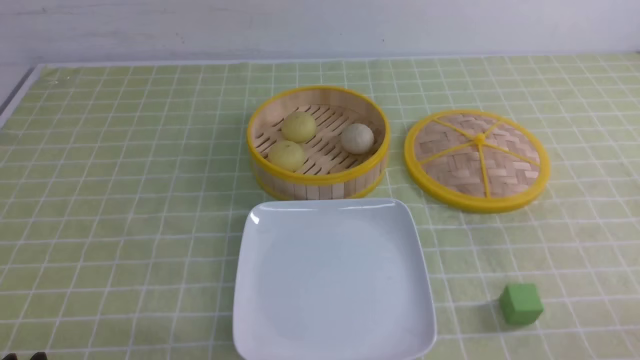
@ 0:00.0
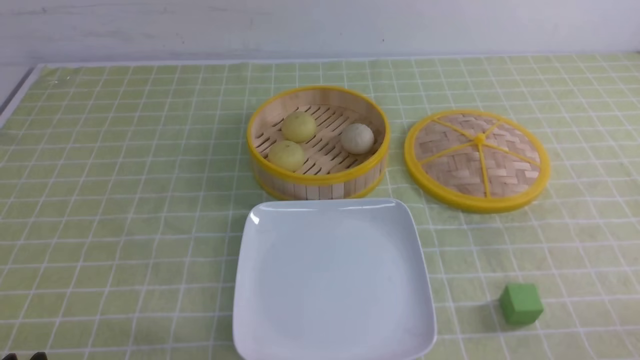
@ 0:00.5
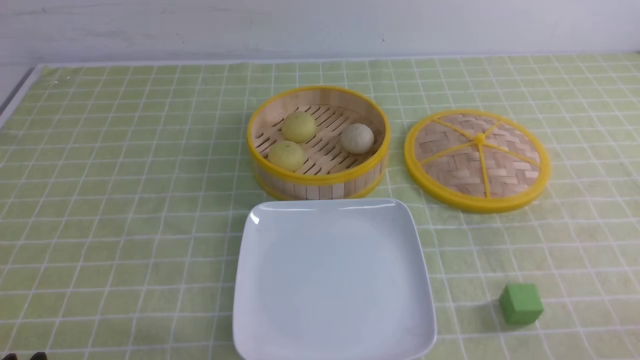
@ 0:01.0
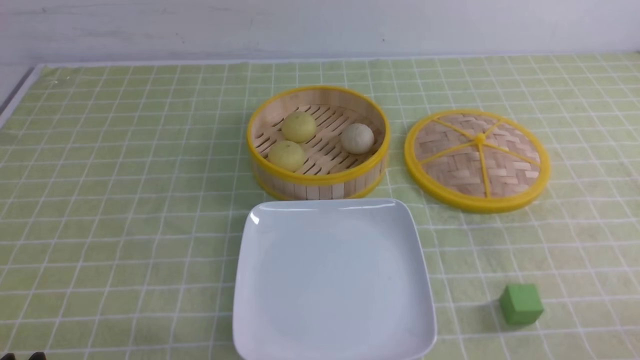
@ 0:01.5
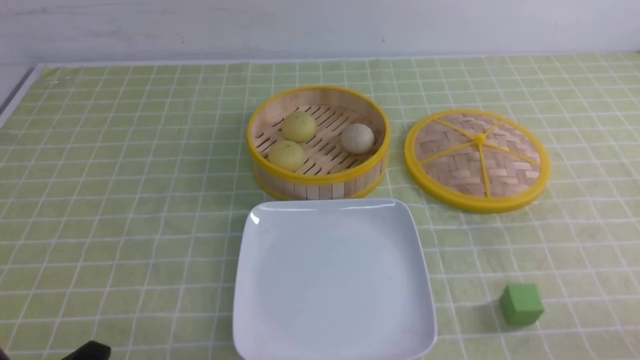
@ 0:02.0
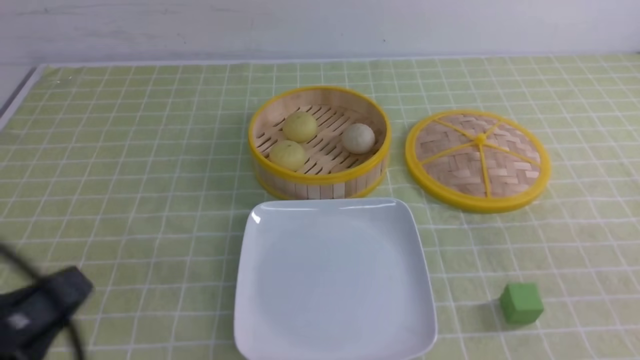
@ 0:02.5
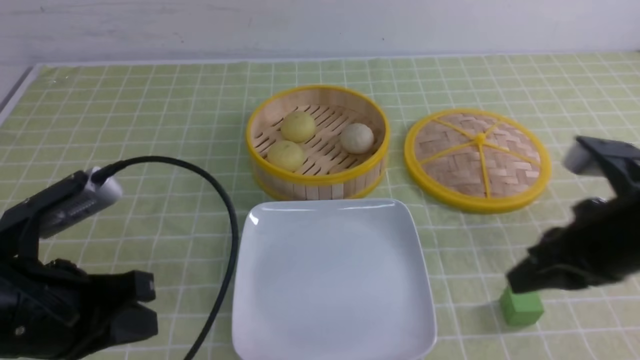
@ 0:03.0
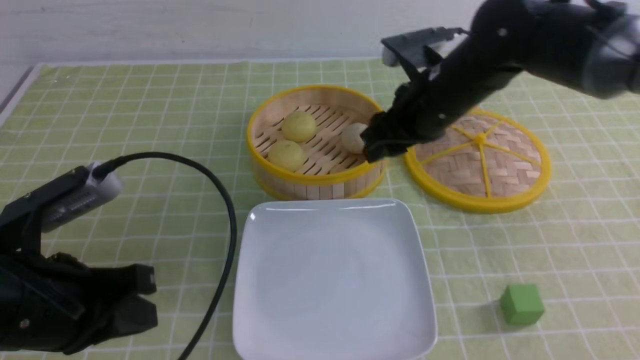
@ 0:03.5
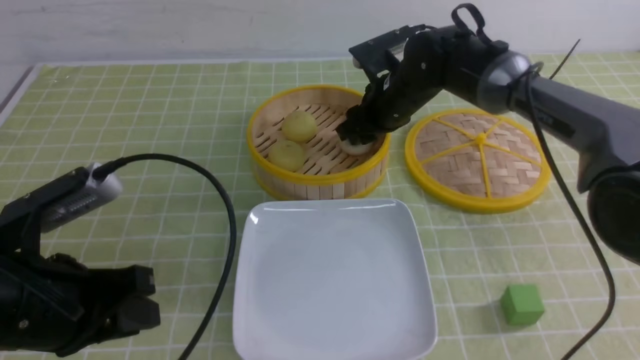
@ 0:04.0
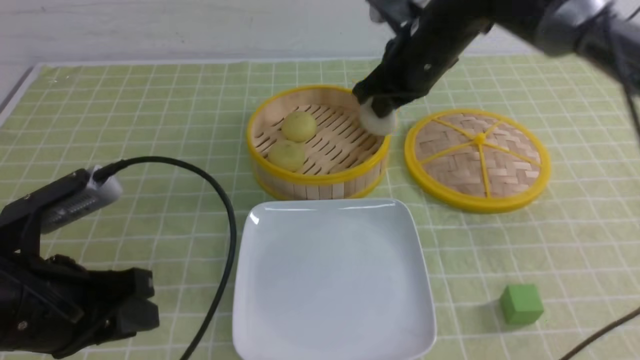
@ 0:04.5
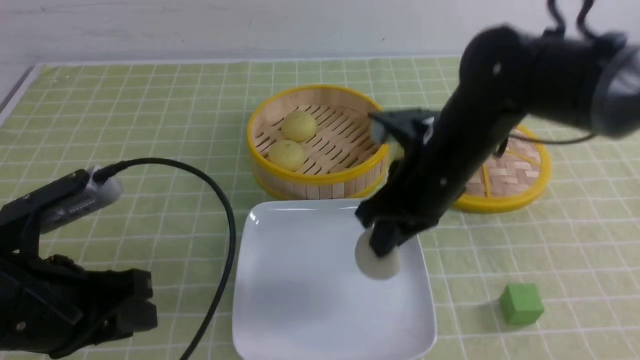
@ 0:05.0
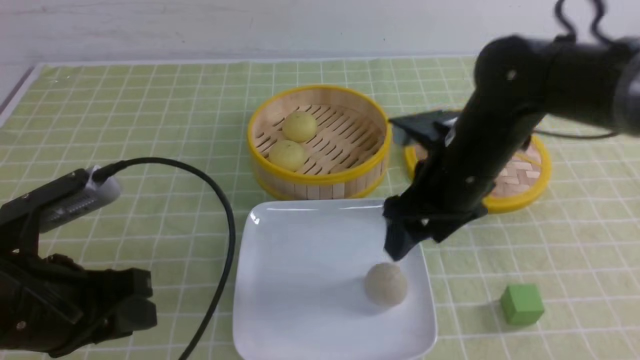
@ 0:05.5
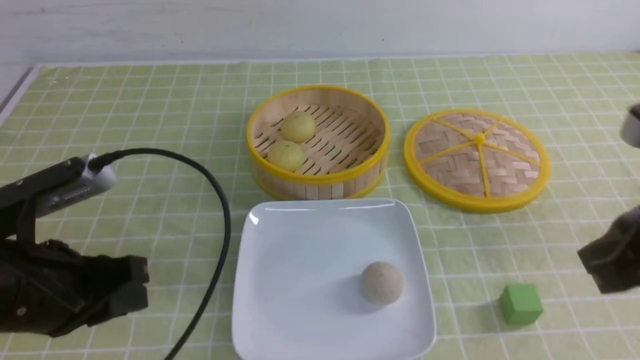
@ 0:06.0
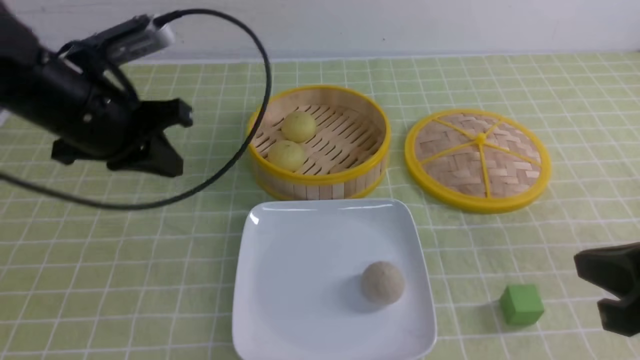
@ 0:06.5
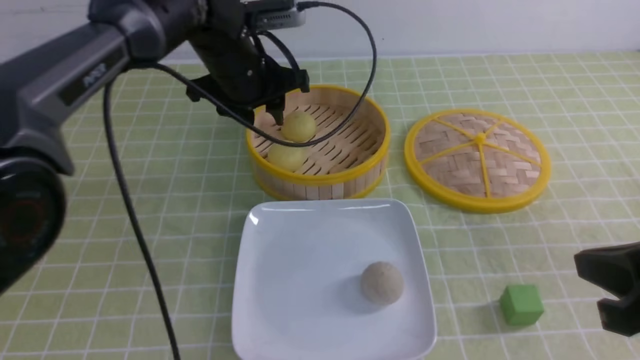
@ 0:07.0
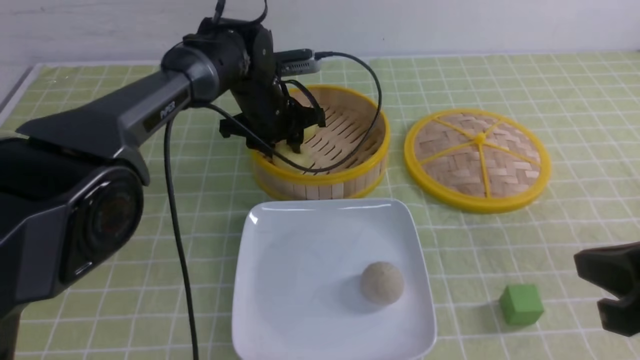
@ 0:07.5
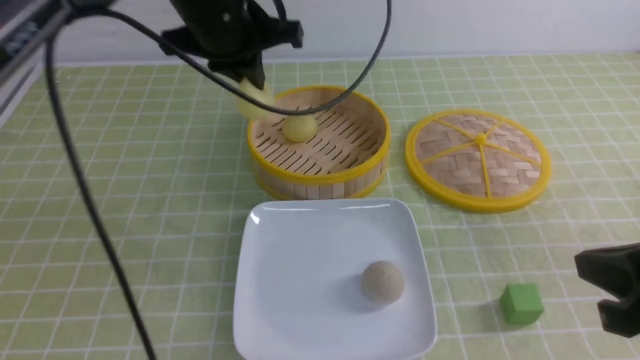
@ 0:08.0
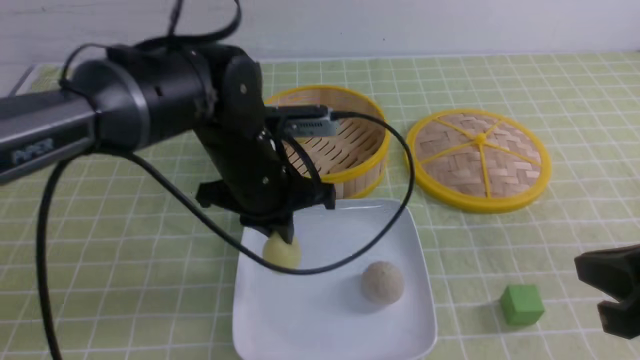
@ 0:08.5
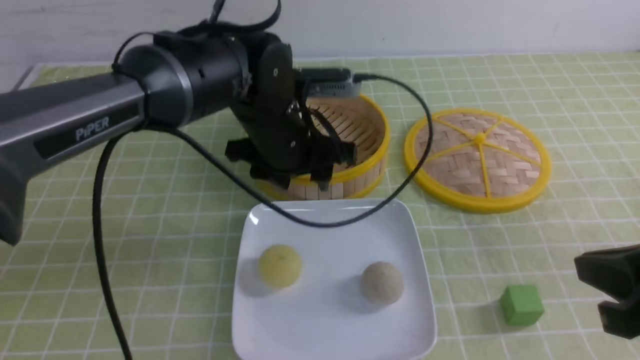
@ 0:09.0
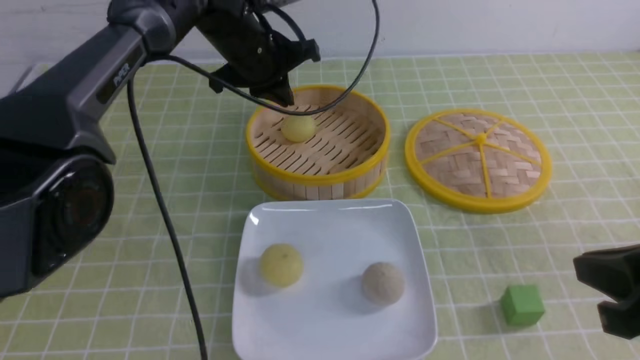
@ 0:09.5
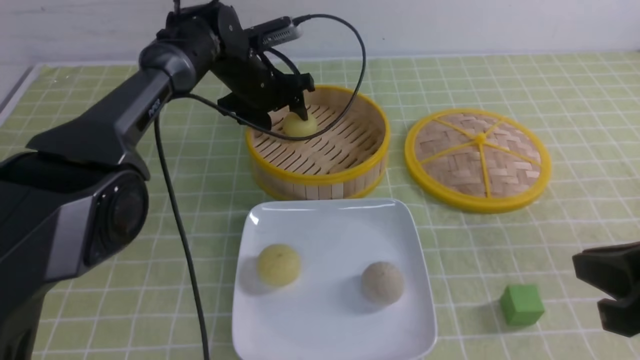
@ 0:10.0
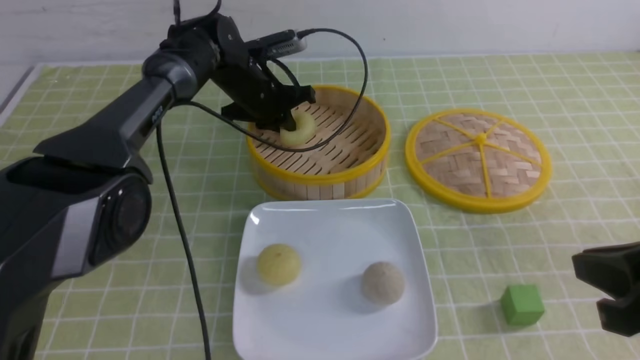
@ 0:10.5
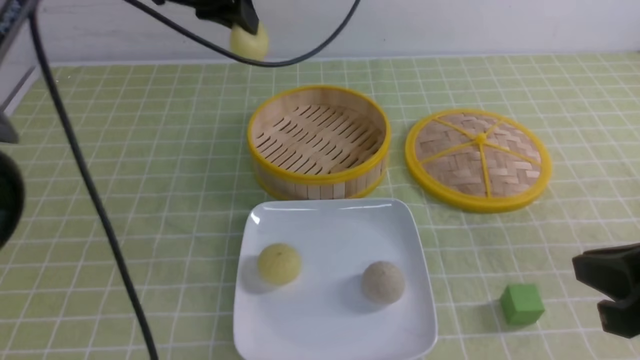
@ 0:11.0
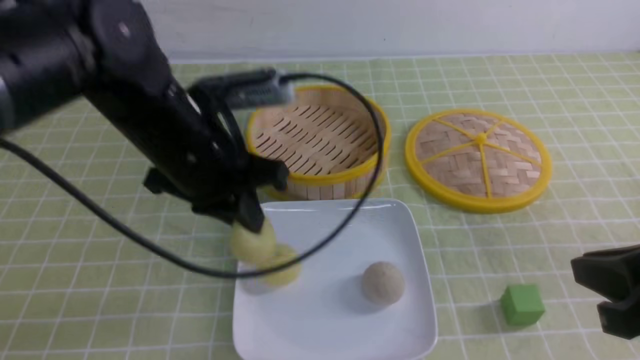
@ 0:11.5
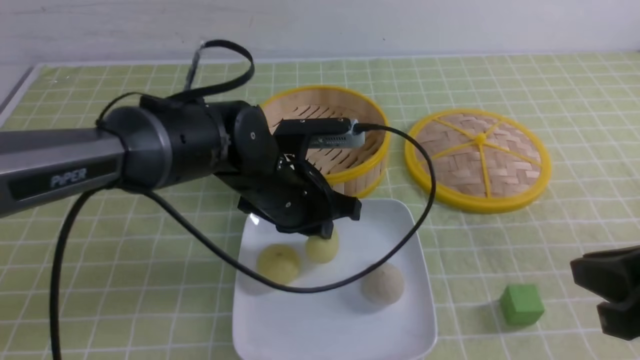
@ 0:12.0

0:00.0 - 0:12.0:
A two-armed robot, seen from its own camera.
Step, 0:00.0 - 0:04.0: use the right arm to grab the steamed stuffed bun that is closest to it.
Step, 0:04.5 - 0:05.0: use the right arm to put the steamed stuffed bun into the plate.
Step, 0:05.5 - 0:07.5: use the left arm to grab the steamed stuffed bun that is closest to it.
Step, 0:08.0 - 0:08.5: use the left arm to put the steamed stuffed bun into the plate.
Step, 0:09.0 - 0:10.0: use the left arm to grab the steamed stuffed bun that is closest to it.
0:02.0 - 0:04.0: The left gripper is displaced forward and upward by approximately 15 cm, and closes, then reopens; the right gripper moves forward and to the left, some 50 cm, and closes and opens again.
0:04.0 - 0:06.0: The right gripper goes about 35 cm backward and to the right, and closes.
0:06.0 - 0:08.0: The left gripper moves forward and to the right, roughly 25 cm, and opens, then closes once more. Meanwhile the right gripper moves about 5 cm.
0:08.0 - 0:10.0: The left gripper moves downward and forward, approximately 20 cm, and opens up.
0:10.0 - 0:12.0: The left gripper heads backward, covering some 20 cm, and closes its fingers.

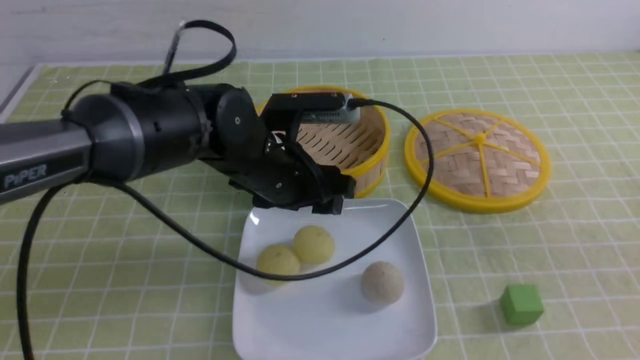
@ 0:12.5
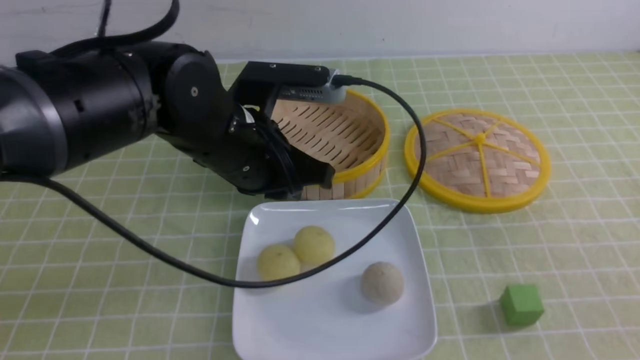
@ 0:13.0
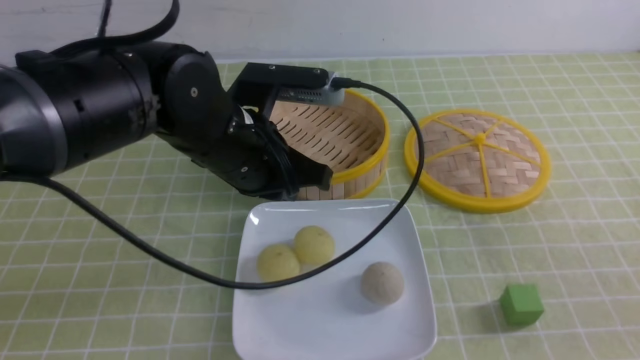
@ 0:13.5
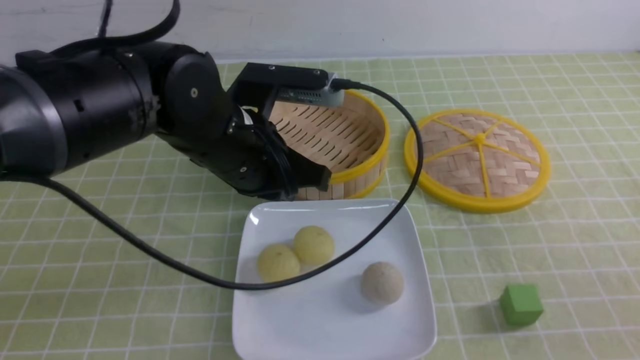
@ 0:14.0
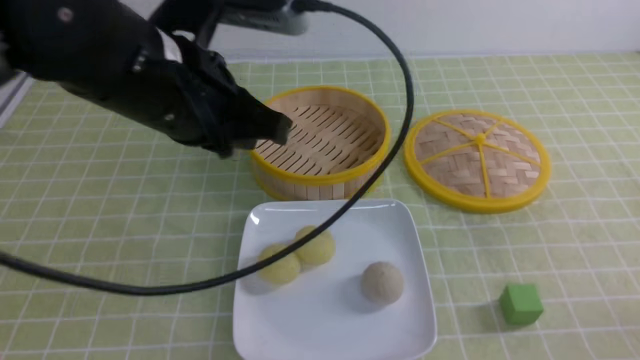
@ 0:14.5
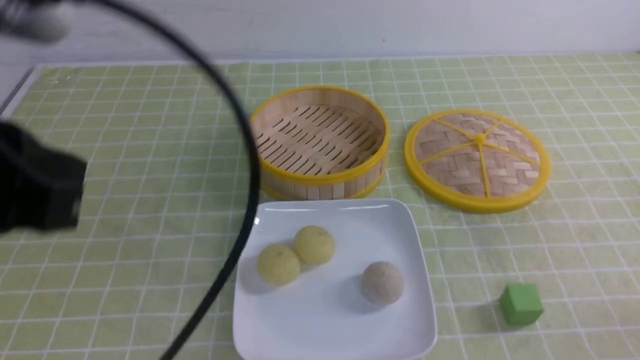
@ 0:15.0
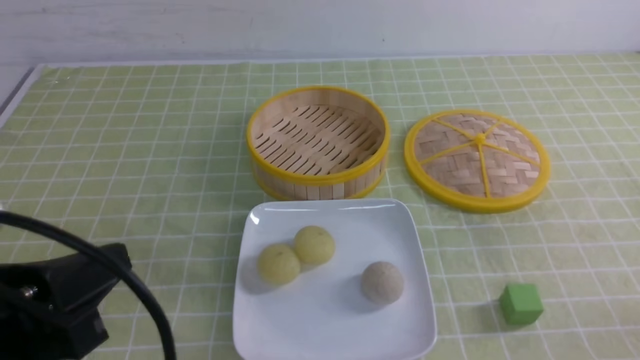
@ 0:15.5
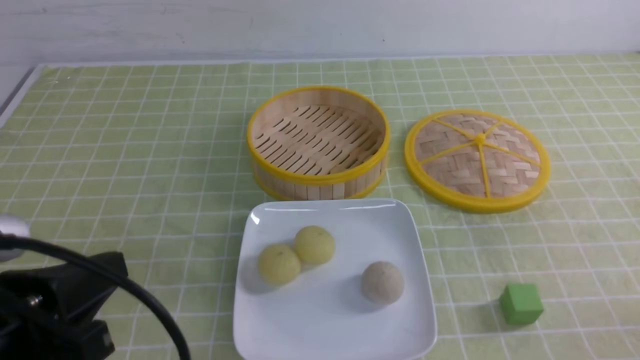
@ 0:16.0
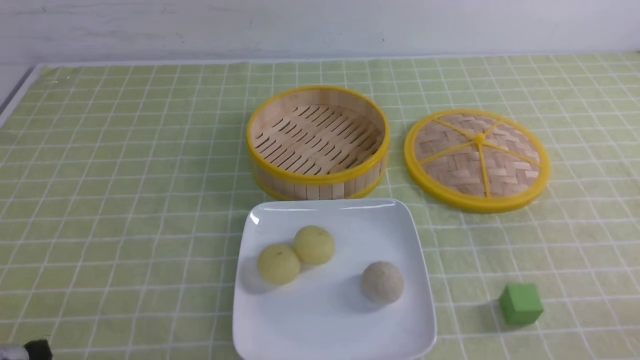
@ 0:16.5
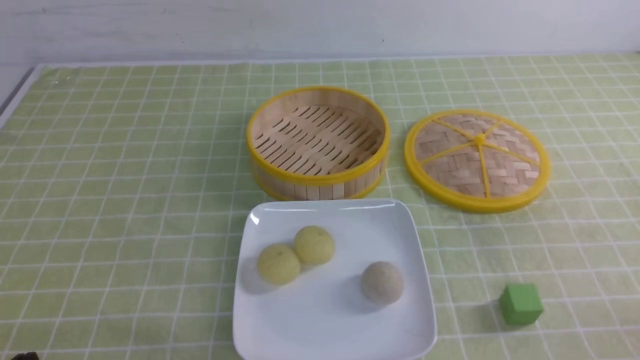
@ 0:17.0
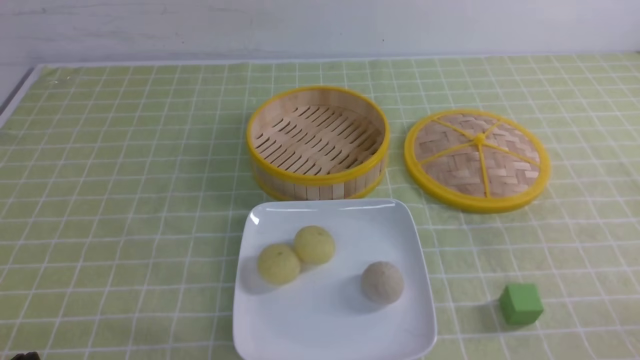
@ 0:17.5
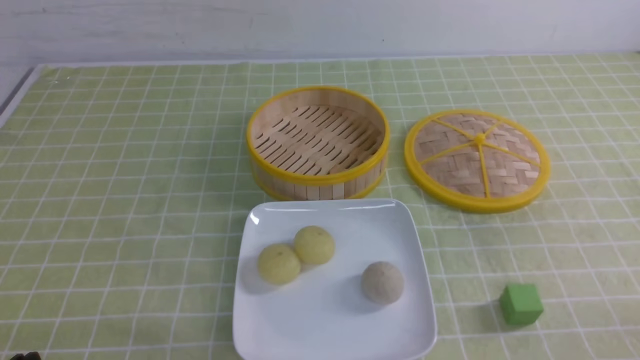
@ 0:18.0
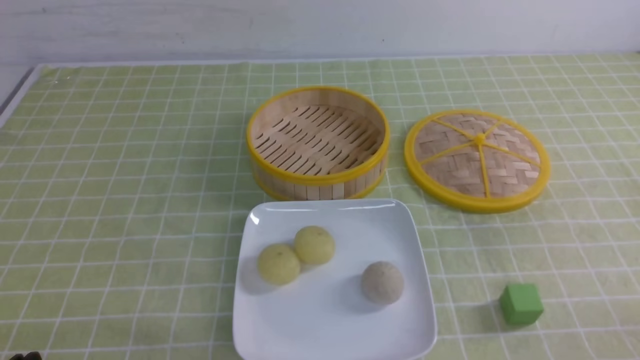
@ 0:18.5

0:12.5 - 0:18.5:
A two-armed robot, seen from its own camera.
0:12.5 - 0:14.5: The left gripper travels upward, backward and to the left by roughly 15 cm, and closes up. Meanwhile the right gripper moves downward, roughly 15 cm.
0:14.5 - 0:16.5: The left gripper heads backward, downward and to the left, covering some 30 cm.

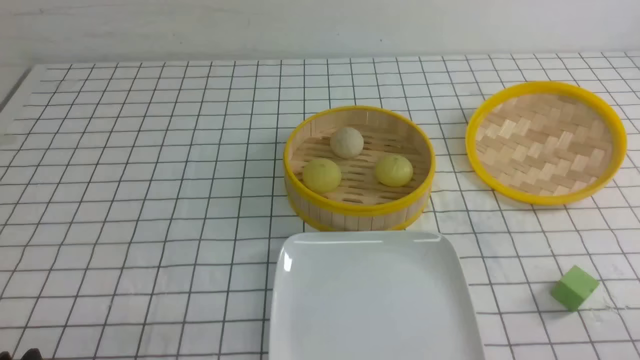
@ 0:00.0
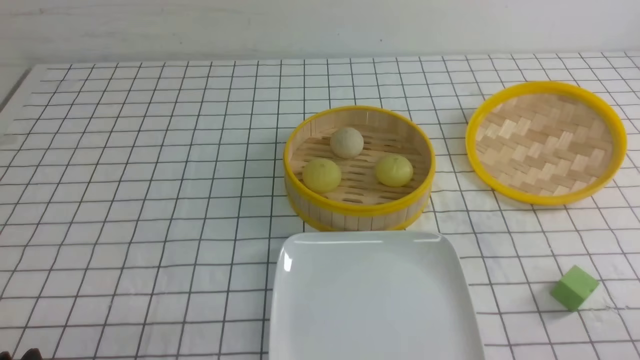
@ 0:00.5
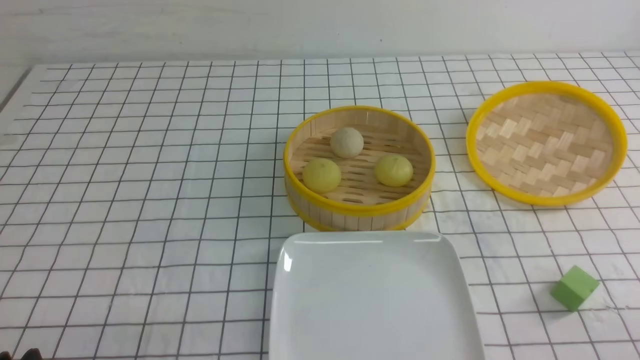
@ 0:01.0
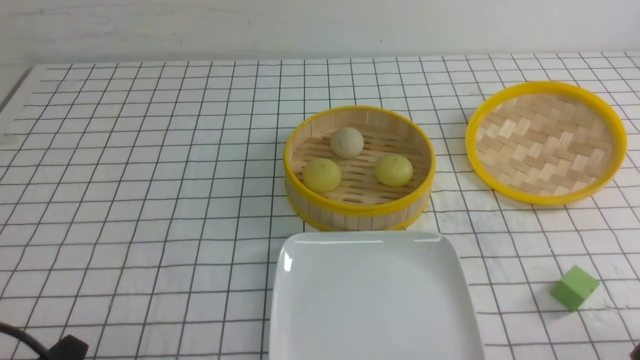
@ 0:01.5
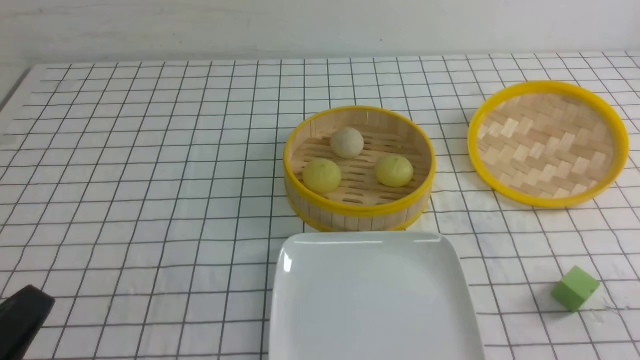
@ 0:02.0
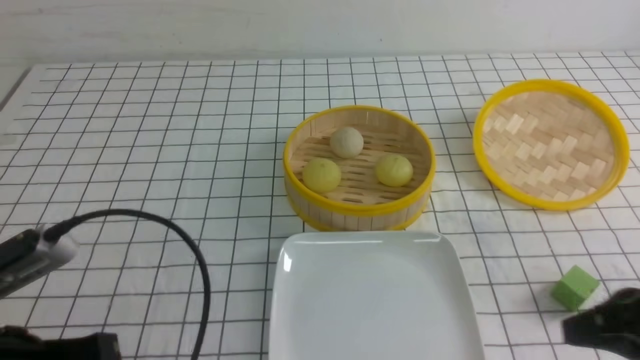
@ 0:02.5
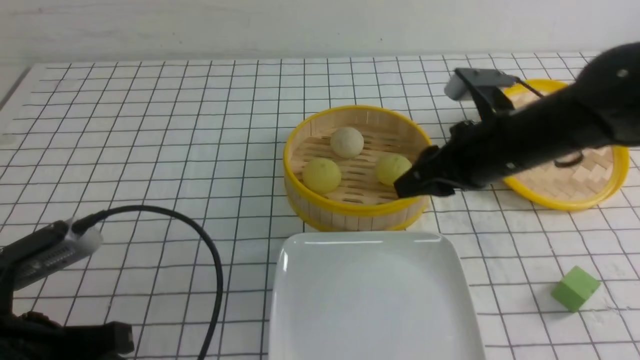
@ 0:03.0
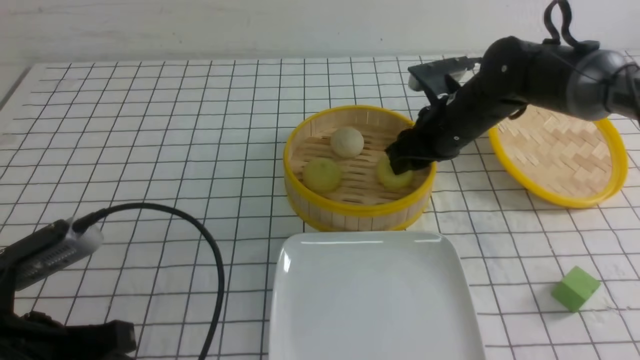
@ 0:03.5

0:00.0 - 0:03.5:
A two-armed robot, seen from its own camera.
0:00.0 - 0:02.0: The left gripper is displaced upward by roughly 5 cm.
0:02.0 - 0:03.5: The left gripper heads forward, covering approximately 10 cm; the right gripper heads forward, covering approximately 40 cm, and opens its fingers.
